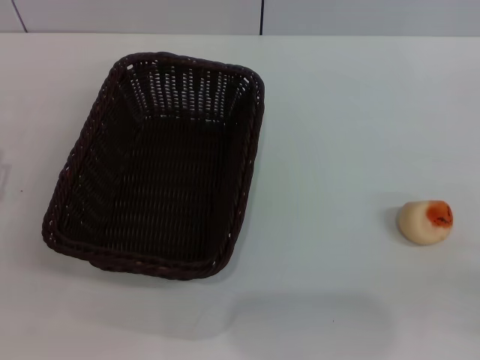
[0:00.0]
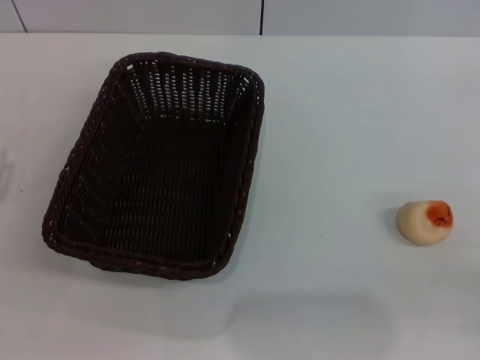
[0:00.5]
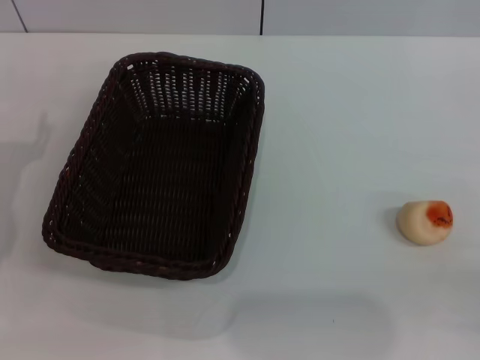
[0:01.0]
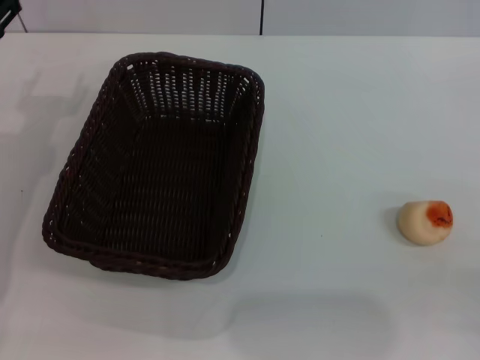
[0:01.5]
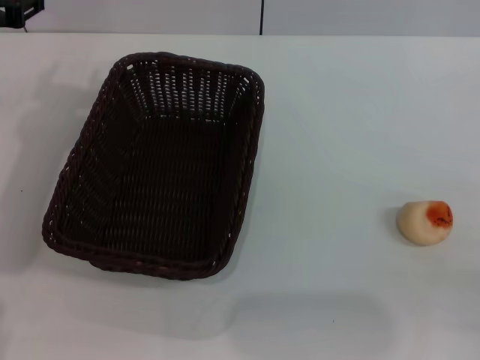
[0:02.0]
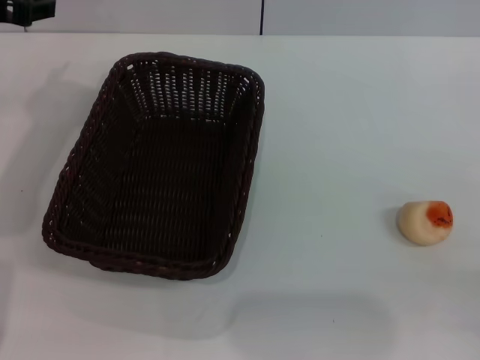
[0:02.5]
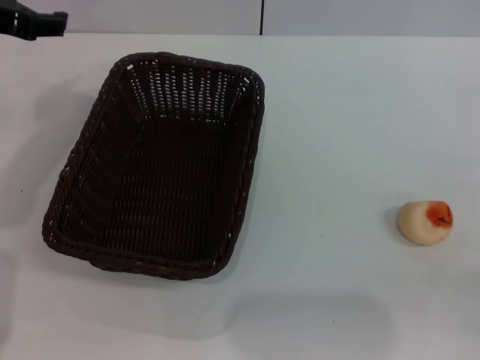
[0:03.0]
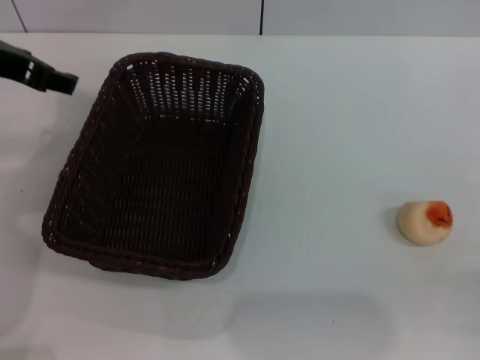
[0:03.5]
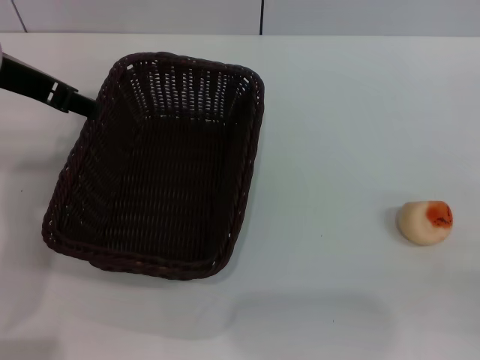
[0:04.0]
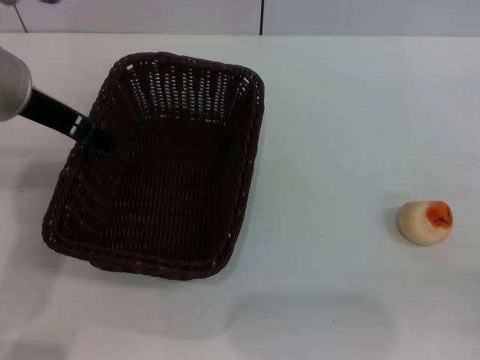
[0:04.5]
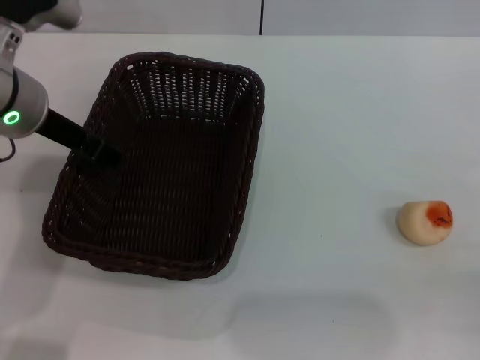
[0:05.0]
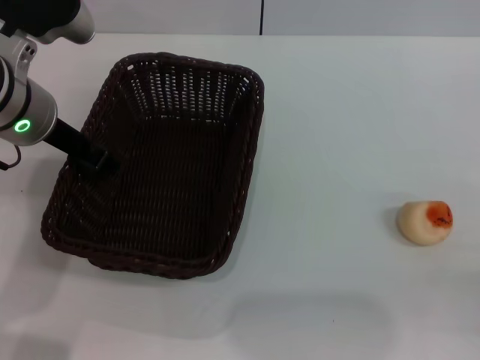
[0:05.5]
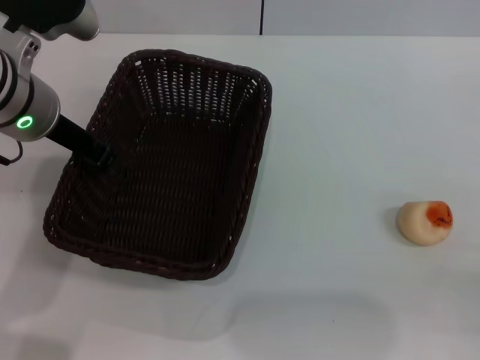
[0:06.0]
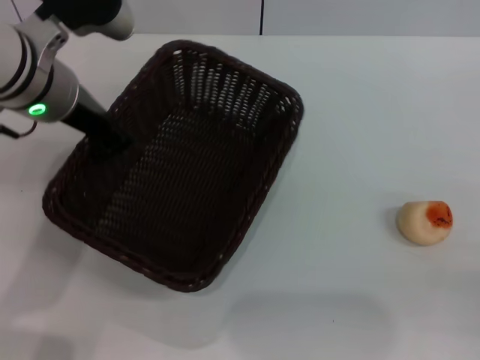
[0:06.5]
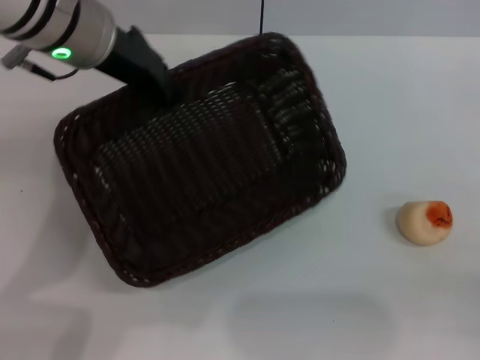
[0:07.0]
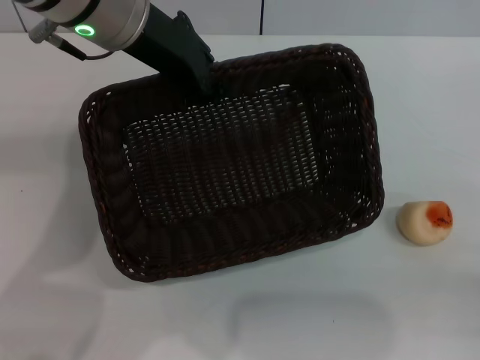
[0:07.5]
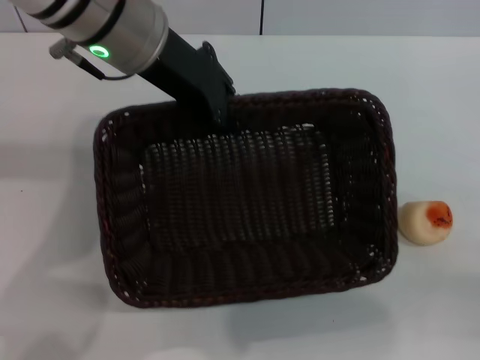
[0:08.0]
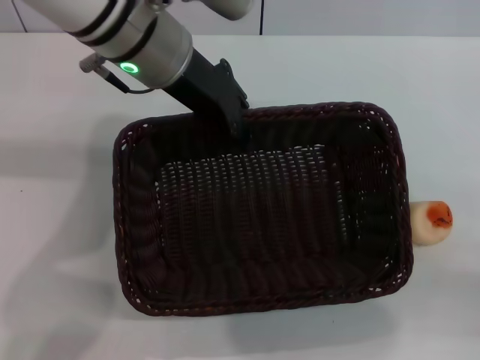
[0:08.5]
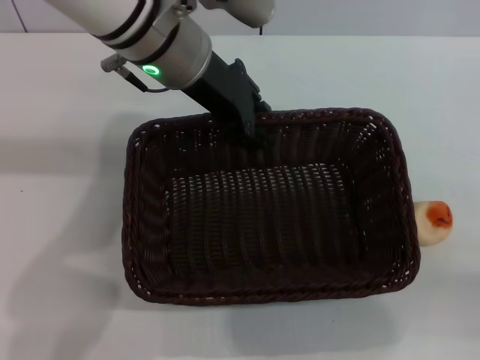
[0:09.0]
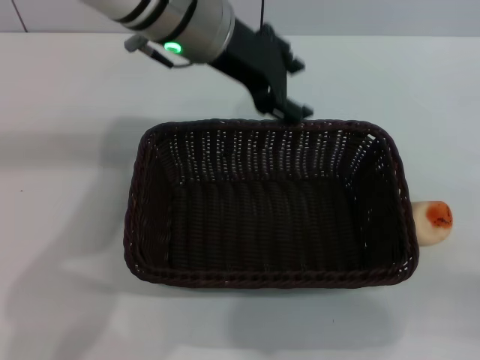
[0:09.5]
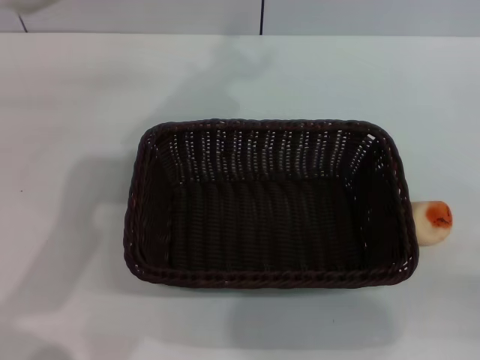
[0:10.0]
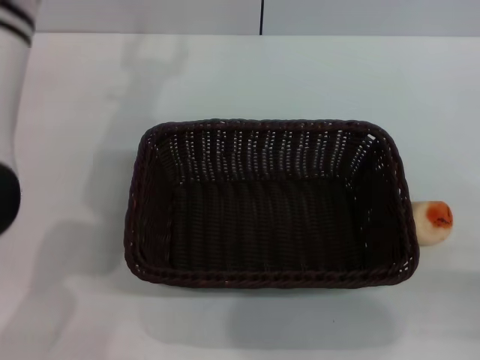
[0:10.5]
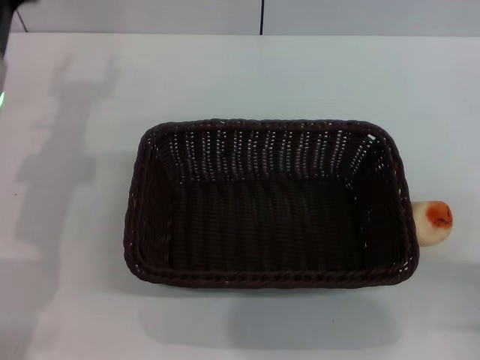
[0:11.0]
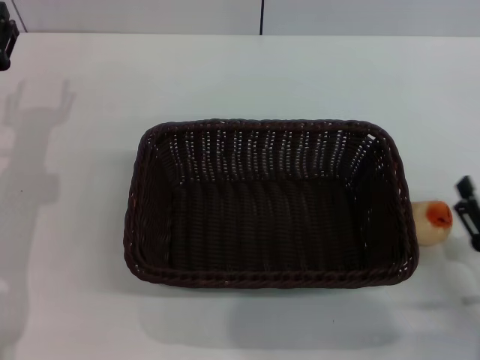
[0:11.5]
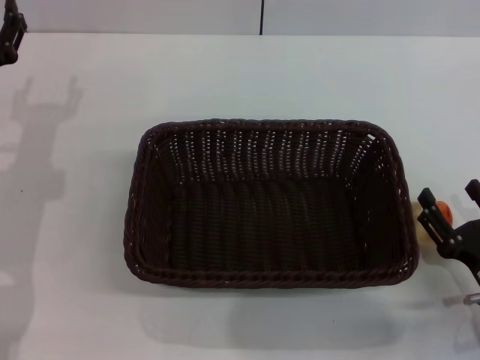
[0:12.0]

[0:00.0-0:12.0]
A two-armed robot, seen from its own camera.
Step, 0.0 to 9.5 s: Move the basket to the center of view with the left gripper.
2.0 to 4.0 s: The left gripper goes some 5 cm upward.
4.0 to 6.0 s: The left gripper shifts some 5 cm downward, and closes.
6.0 to 8.0 s: The left gripper is displaced to the right and upward by roughly 10 cm.
8.0 to 10.0 s: The left gripper opens.
10.0 to 12.0 s: The right gripper is displaced forward and to the left by about 10 cm, while the left gripper shifts about 25 cm downward, to the left and backward.

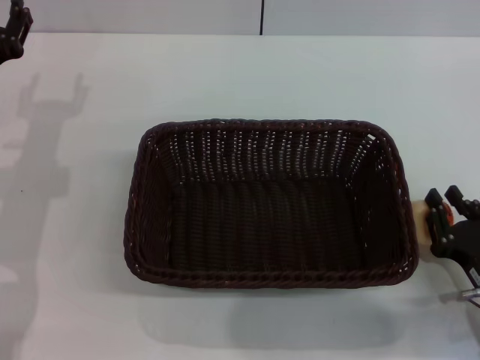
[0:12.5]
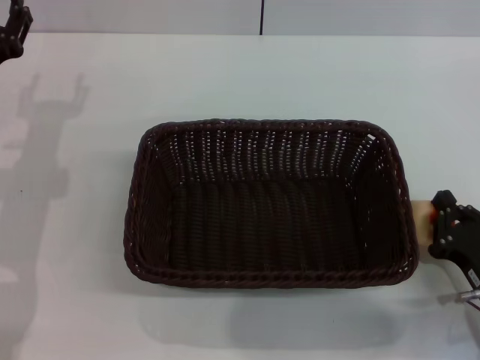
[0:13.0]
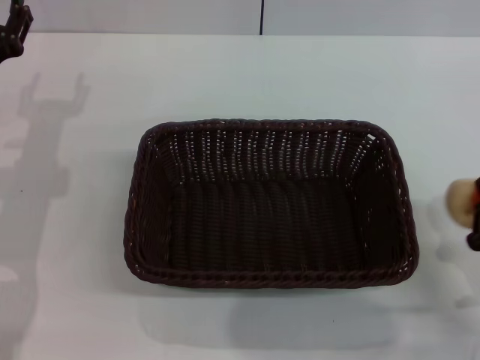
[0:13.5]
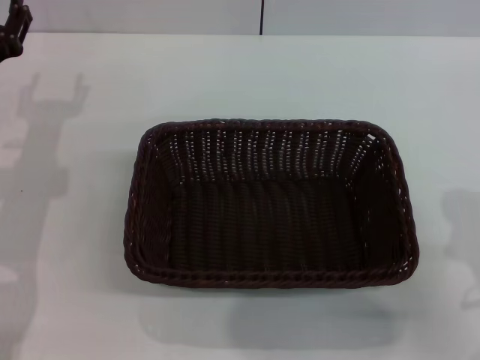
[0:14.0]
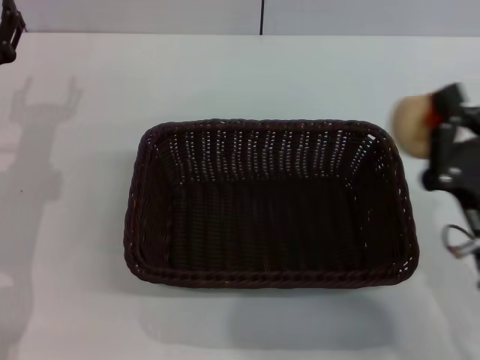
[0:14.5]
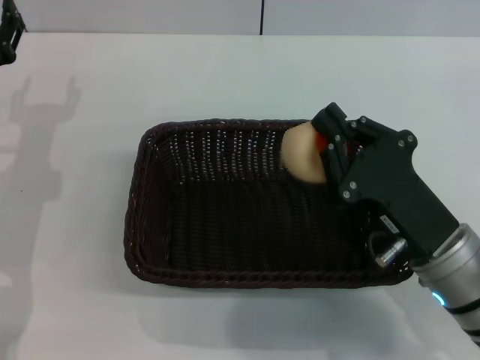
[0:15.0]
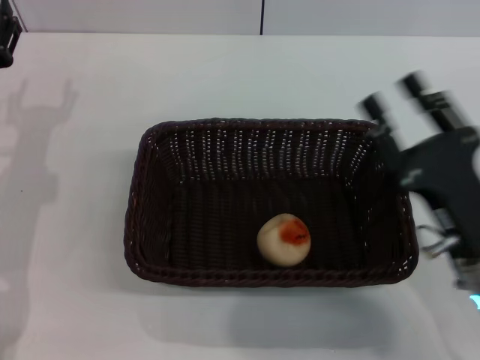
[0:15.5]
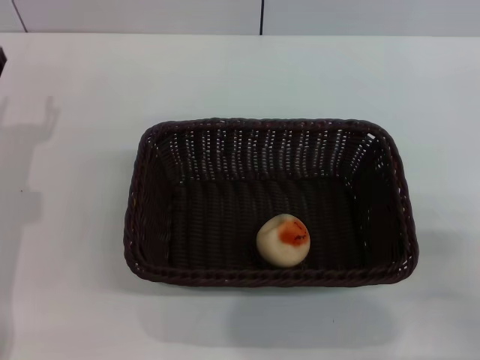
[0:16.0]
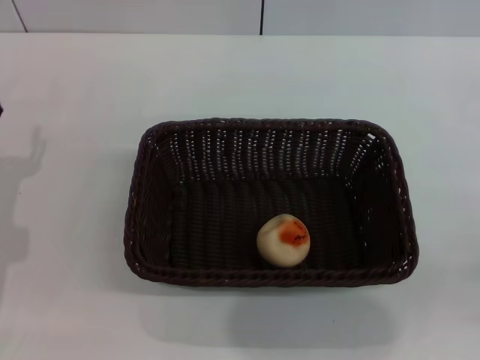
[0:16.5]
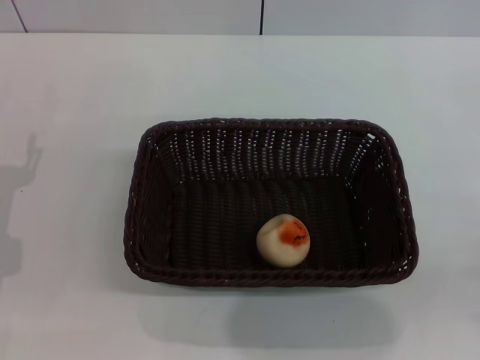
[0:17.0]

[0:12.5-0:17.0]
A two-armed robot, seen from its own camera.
Step, 14.0 to 15.0 s: Place the egg yolk pastry into the basket with the right gripper.
12.5 to 14.5 s: The right gripper travels upward by approximately 5 cm, and closes.
14.5 to 17.0 s: The right gripper shifts approximately 15 cm to the right and backward, and opens up. The left gripper shifts some 10 cm backward.

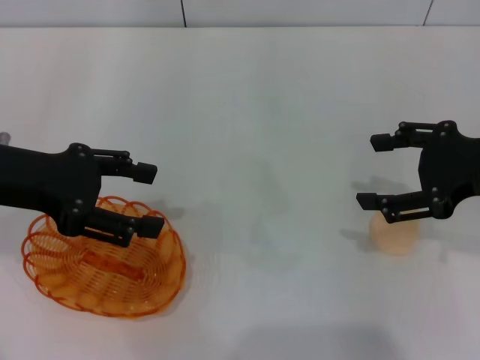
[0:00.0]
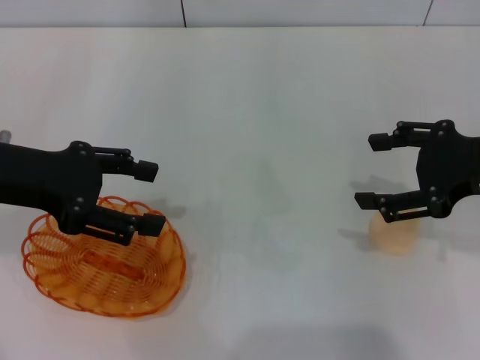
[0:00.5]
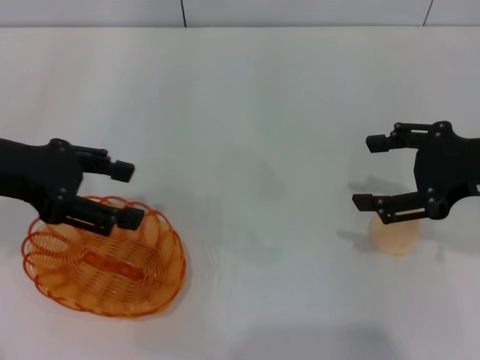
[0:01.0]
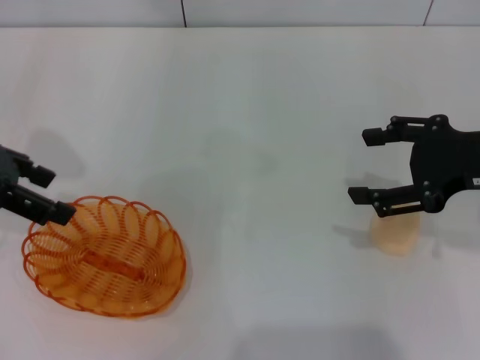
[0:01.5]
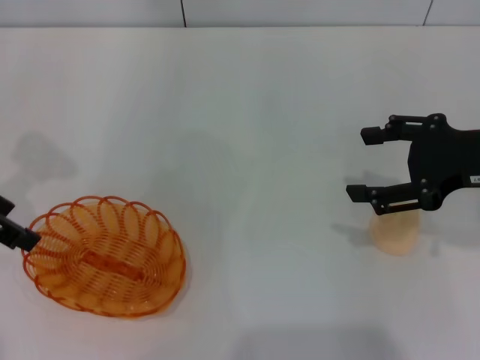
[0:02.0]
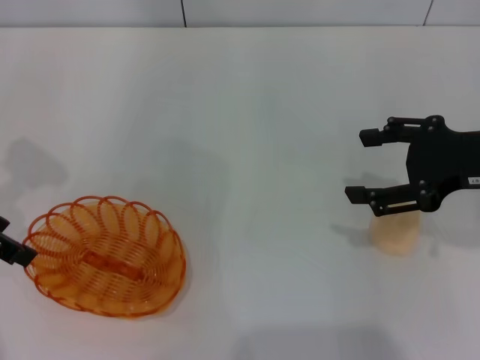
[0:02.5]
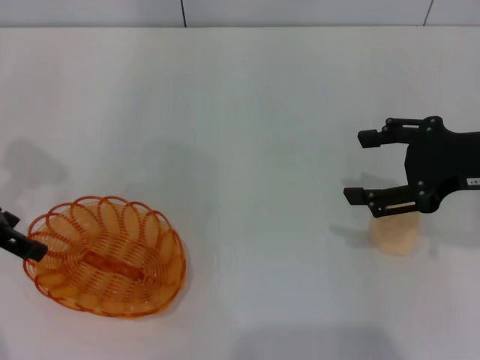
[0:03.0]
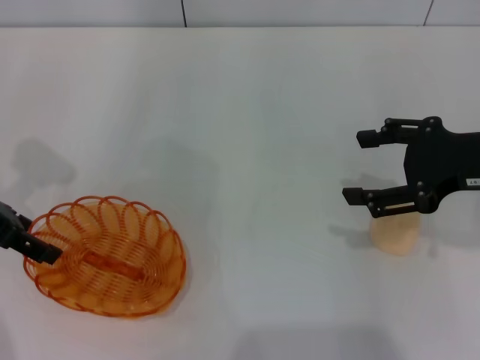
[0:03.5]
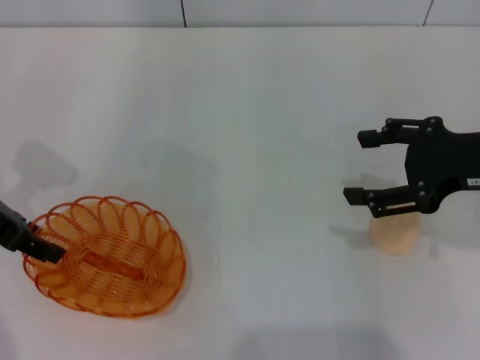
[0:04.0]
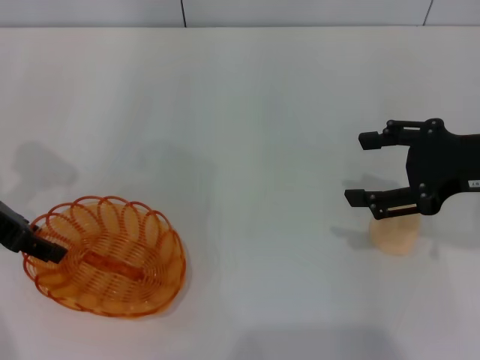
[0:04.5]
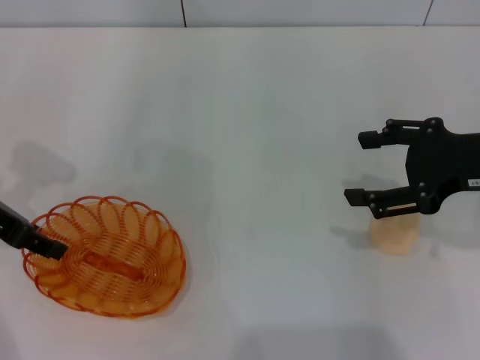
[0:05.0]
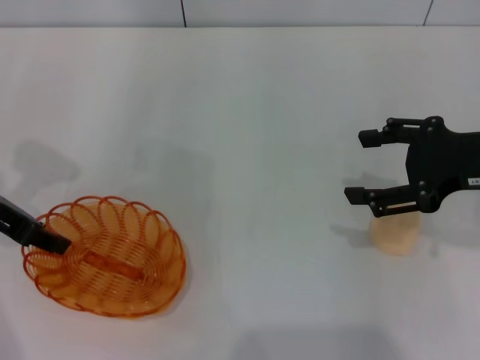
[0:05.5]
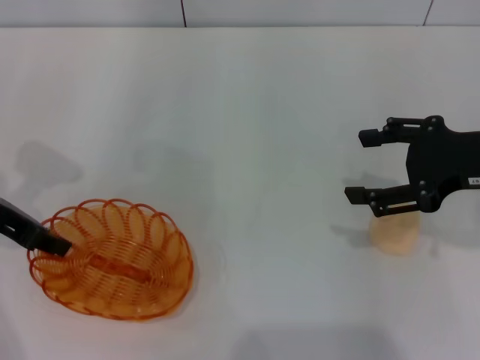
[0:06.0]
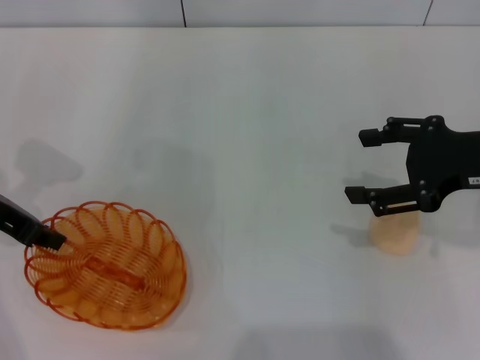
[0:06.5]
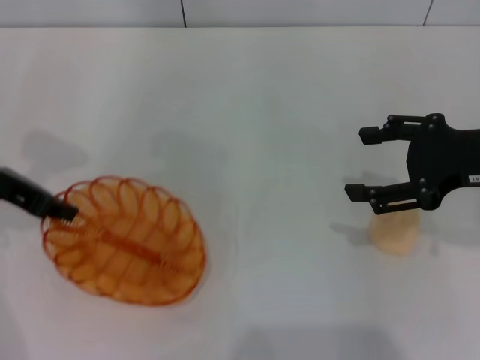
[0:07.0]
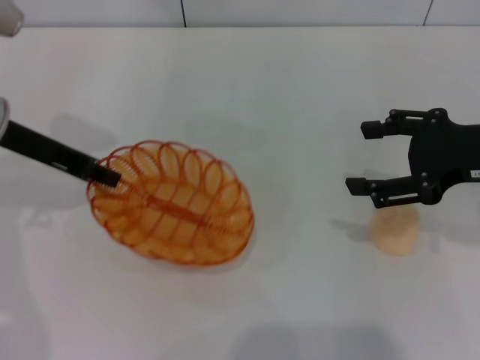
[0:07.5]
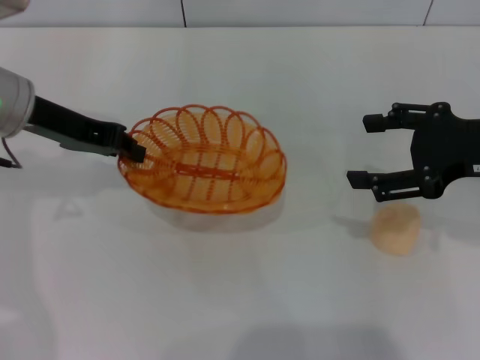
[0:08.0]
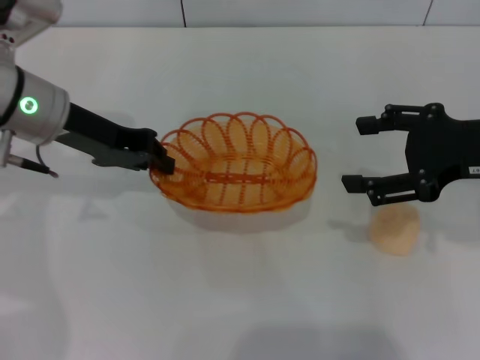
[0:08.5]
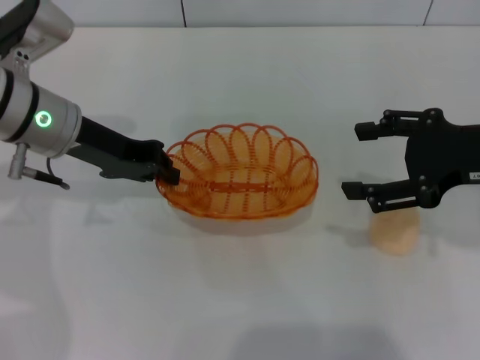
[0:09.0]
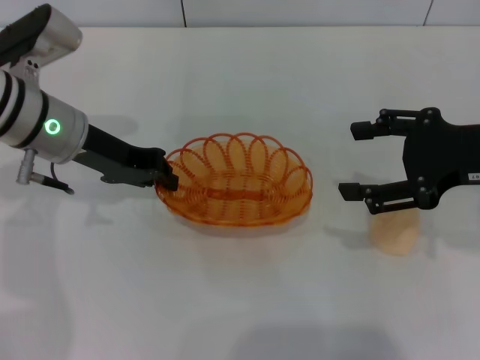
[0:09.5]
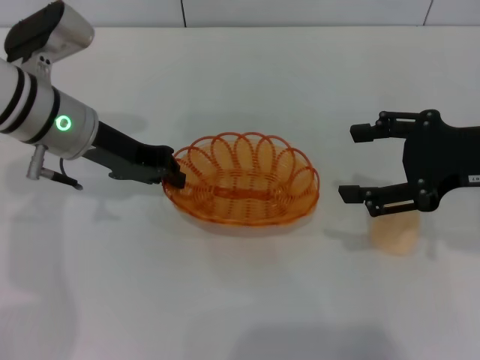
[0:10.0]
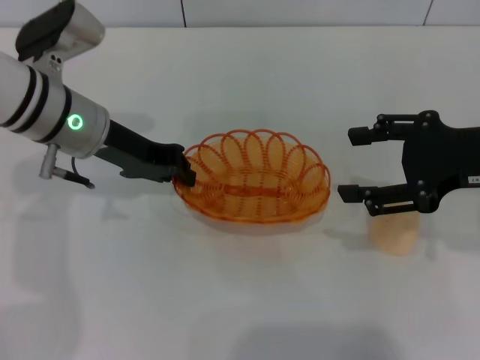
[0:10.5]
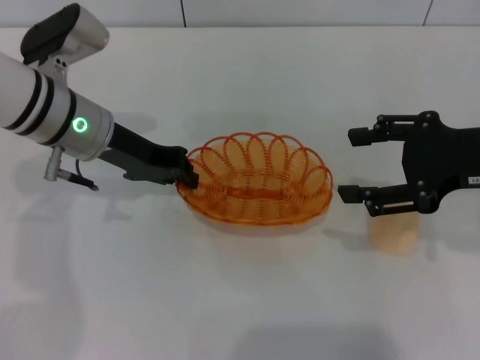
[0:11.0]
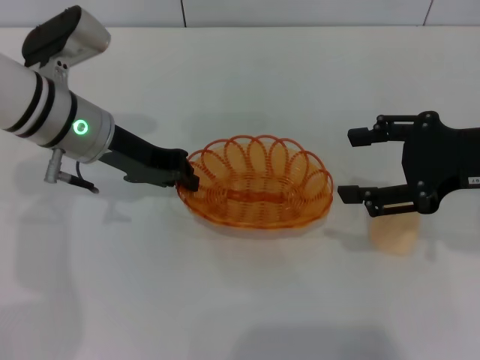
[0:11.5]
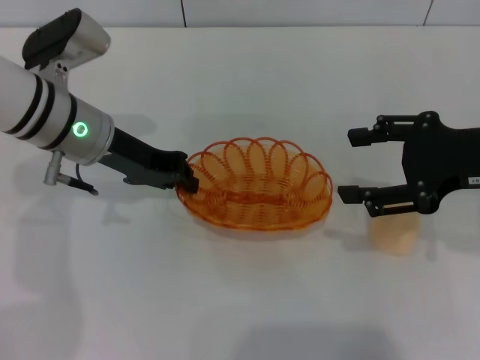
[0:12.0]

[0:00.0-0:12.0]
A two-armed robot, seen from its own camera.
Step, 0.0 to 8.0 s: Pick up the basket with the left gripper.
0.0 to 2.0 s: The left gripper moves roughly 5 cm.
2.0 to 4.0 s: The left gripper moves downward, about 5 cm.
4.0 to 6.0 s: The left gripper closes its fingers.
6.0 to 8.0 s: The left gripper is displaced to the right by some 5 cm.
8.0 to 10.0 s: The left gripper moves approximately 5 cm.
10.0 to 12.0 s: The grippers make only small movements.
